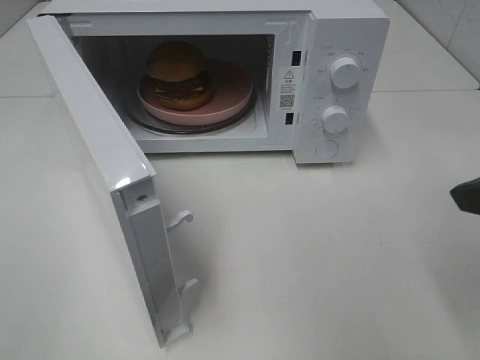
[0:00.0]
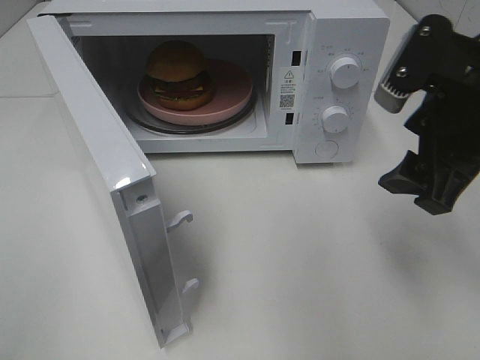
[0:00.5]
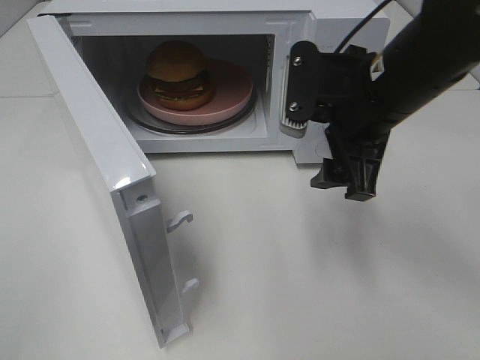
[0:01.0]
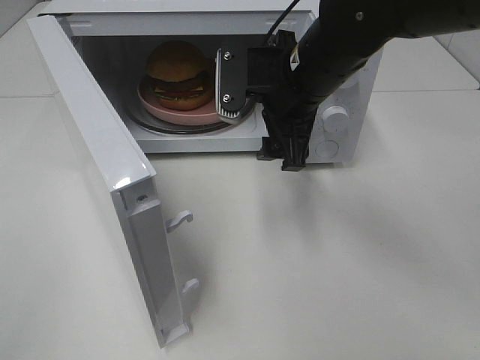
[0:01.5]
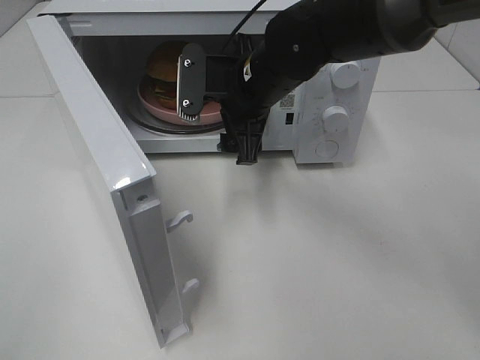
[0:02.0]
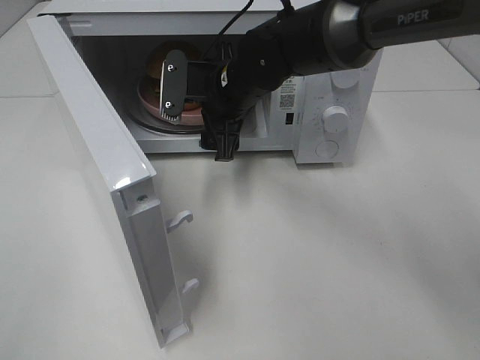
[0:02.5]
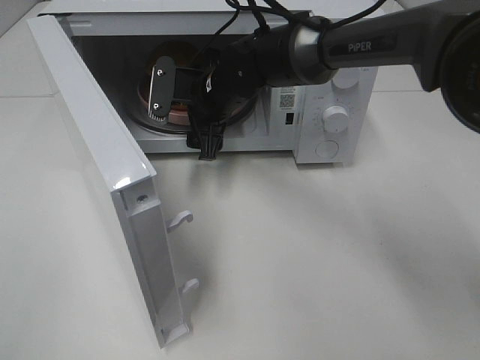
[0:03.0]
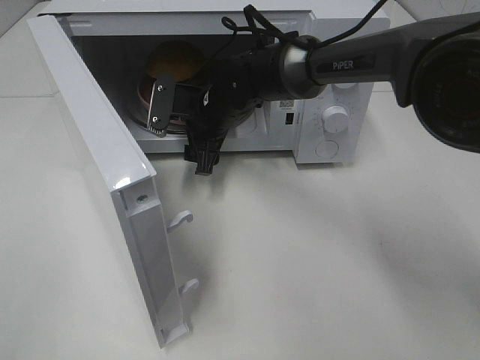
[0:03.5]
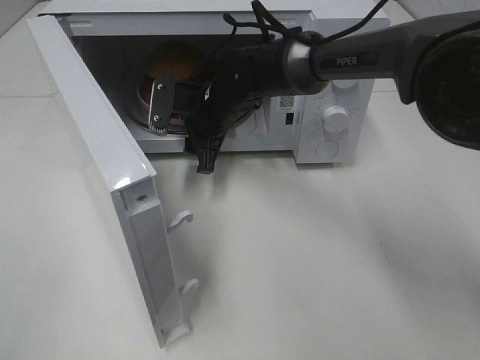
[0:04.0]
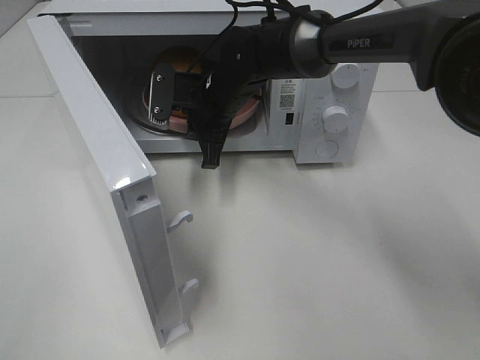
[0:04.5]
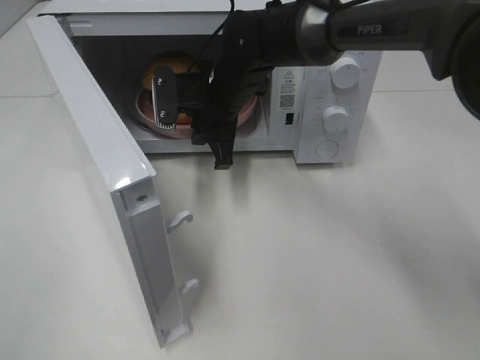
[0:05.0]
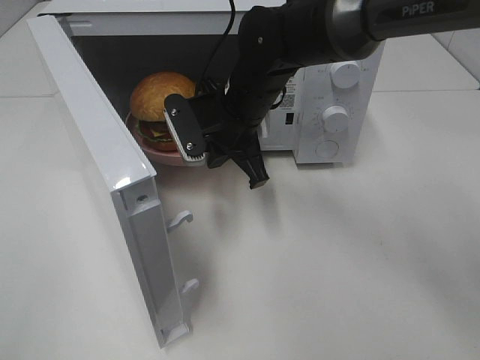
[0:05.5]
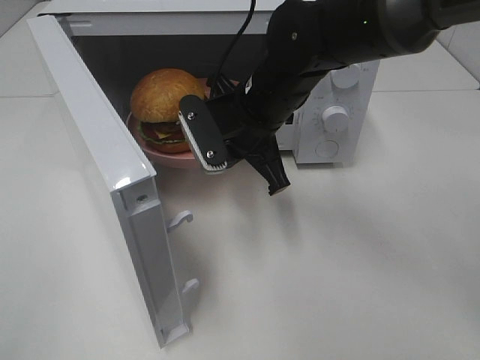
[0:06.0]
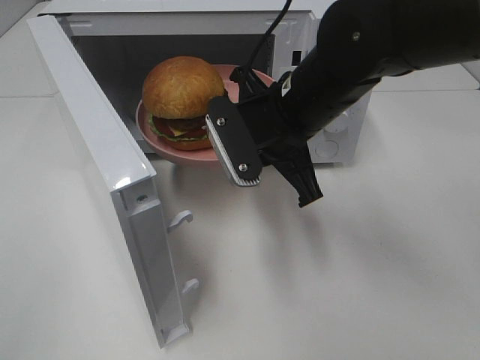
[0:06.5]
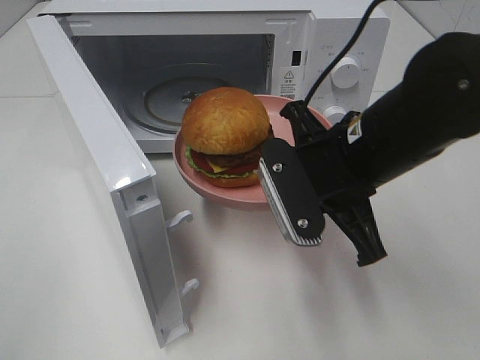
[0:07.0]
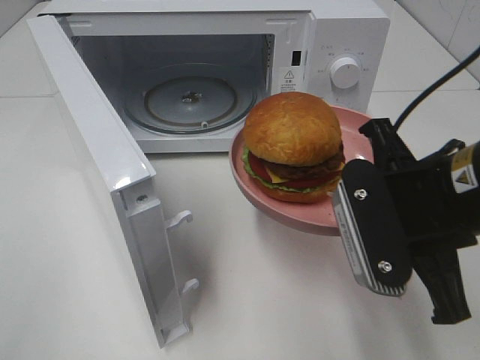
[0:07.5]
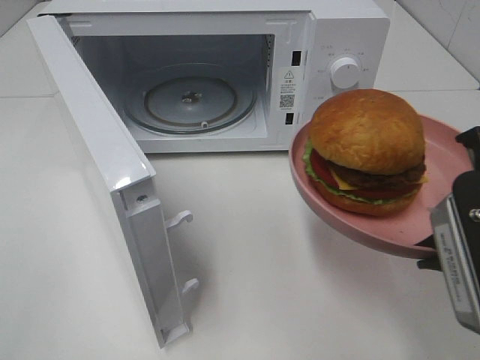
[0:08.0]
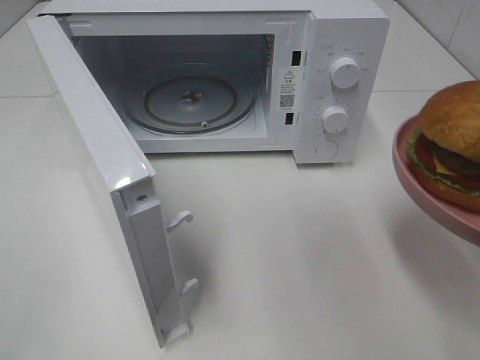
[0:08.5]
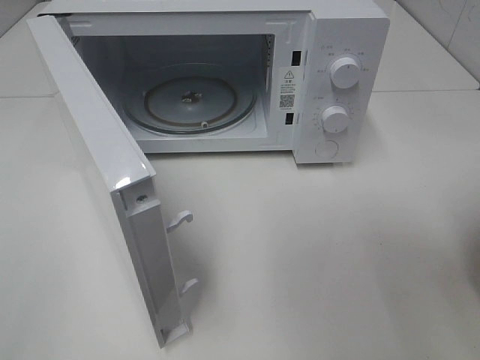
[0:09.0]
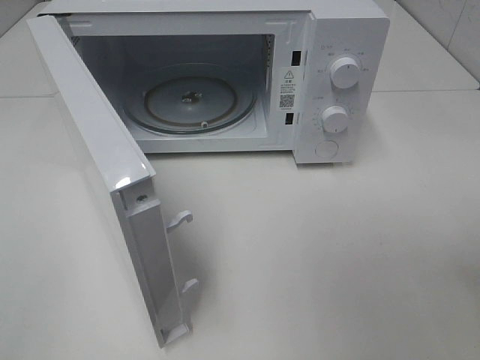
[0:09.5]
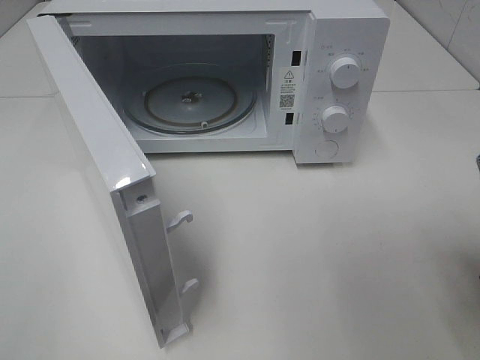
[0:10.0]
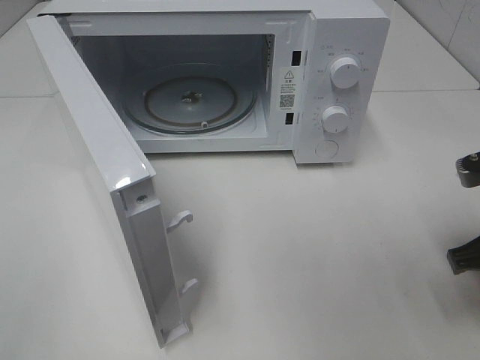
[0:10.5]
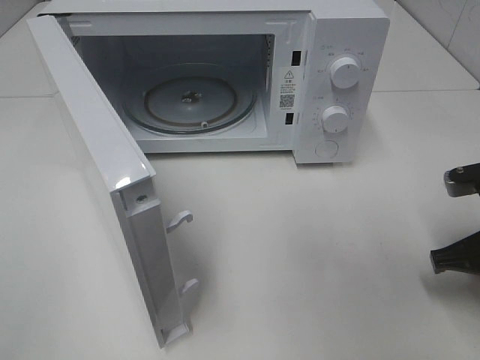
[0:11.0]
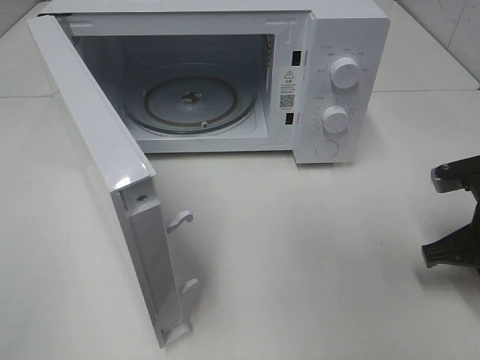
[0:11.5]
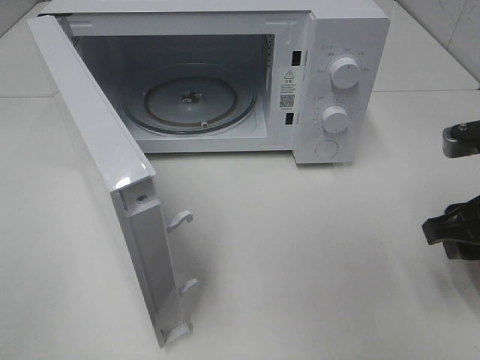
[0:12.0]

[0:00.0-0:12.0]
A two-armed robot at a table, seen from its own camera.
Task of the whole recording: Heat the burger.
Step, 0:00.0 to 0:04.0: Right hand: grab the plate with the hamburger.
Step, 0:04.5 to 0:11.5: Right hand: place the plate on the table.
0:00.0 to 0:02.0: The right gripper goes approximately 30 cm to the left and forward.
0:02.0 to 0:04.0: The right gripper is displaced downward and forward by about 10 cm.
0:04.0 to 0:06.0: The right gripper heads backward, upward and to the right, covering about 10 cm, and closes its fingers.
0:06.0 to 0:08.0: The right gripper shifts roughly 25 cm backward and to the right.
0:08.0 to 0:10.0: The right gripper moves about 5 cm.
0:10.0 to 0:12.0: The right gripper shifts about 5 cm forward, travels downward and back again, roughly 10 cm each way, and opens.

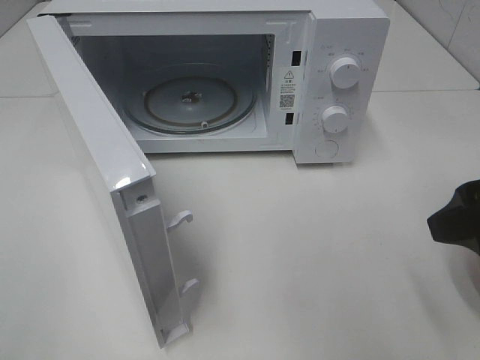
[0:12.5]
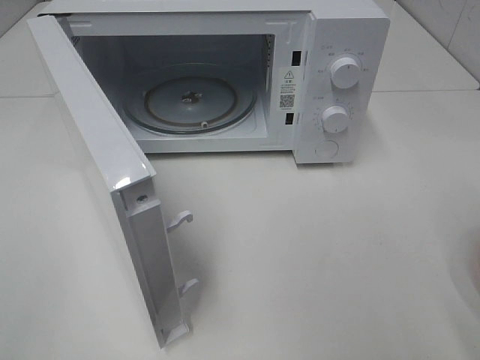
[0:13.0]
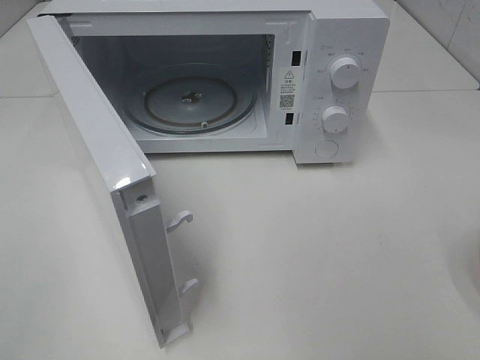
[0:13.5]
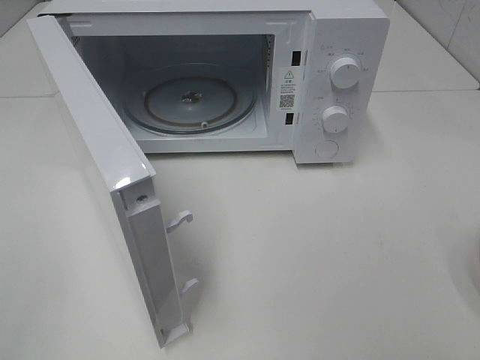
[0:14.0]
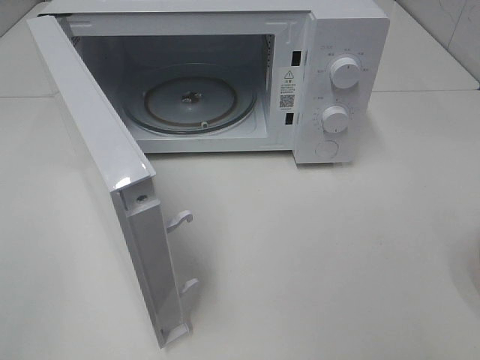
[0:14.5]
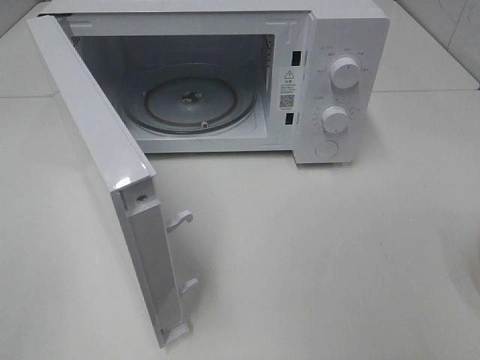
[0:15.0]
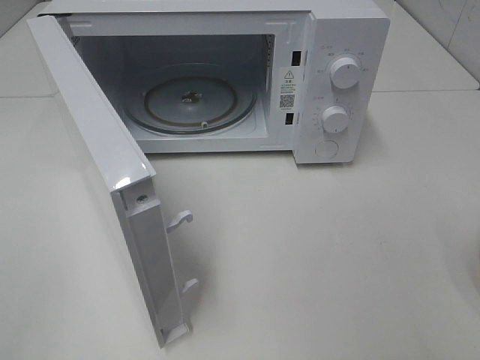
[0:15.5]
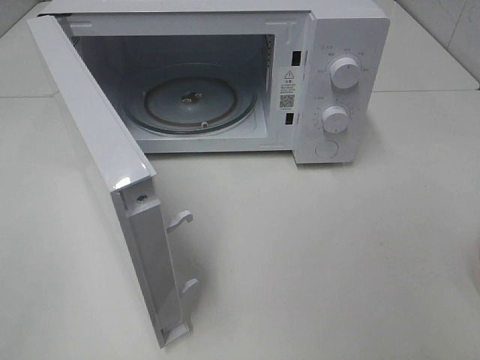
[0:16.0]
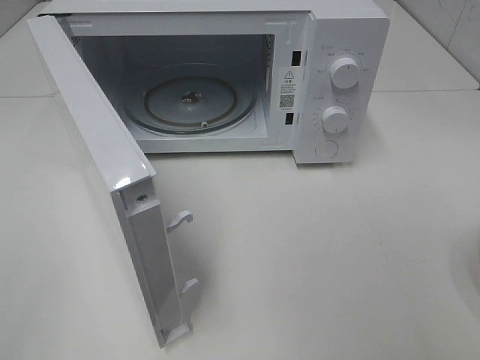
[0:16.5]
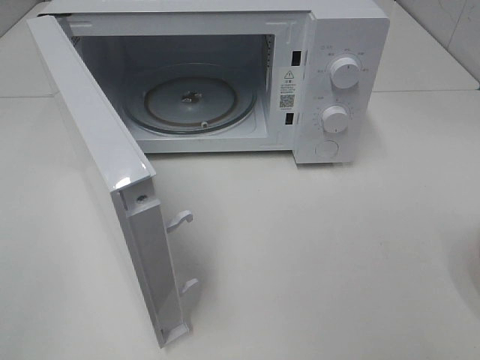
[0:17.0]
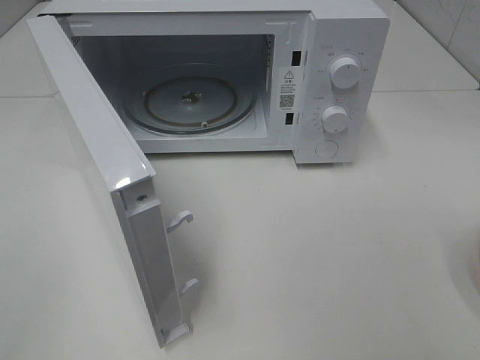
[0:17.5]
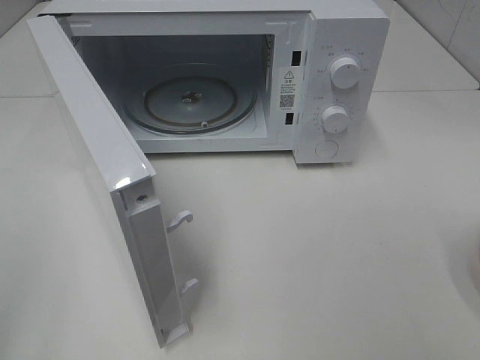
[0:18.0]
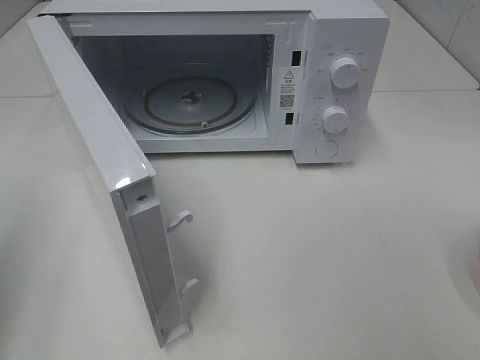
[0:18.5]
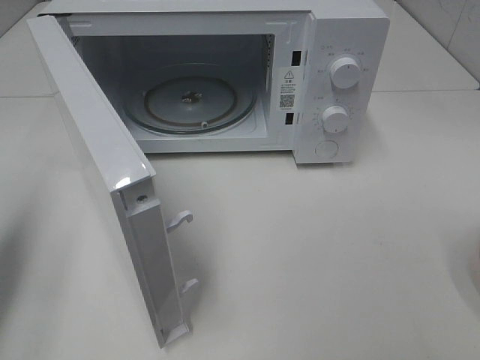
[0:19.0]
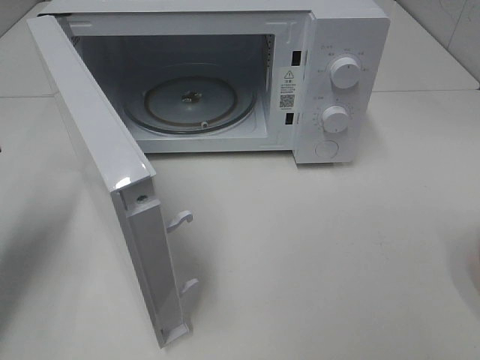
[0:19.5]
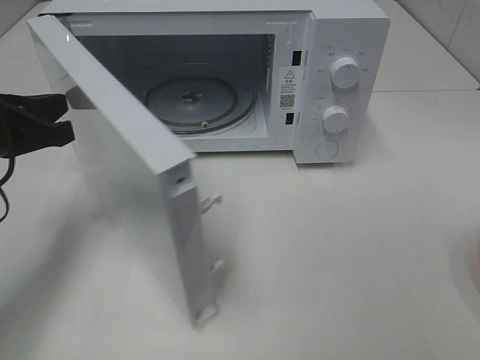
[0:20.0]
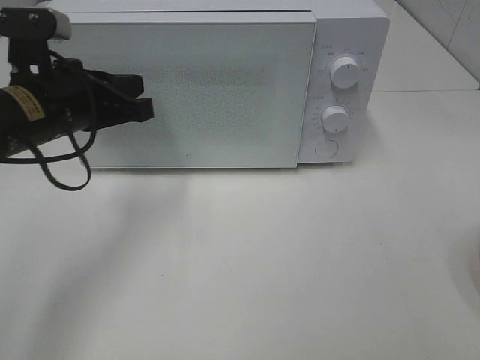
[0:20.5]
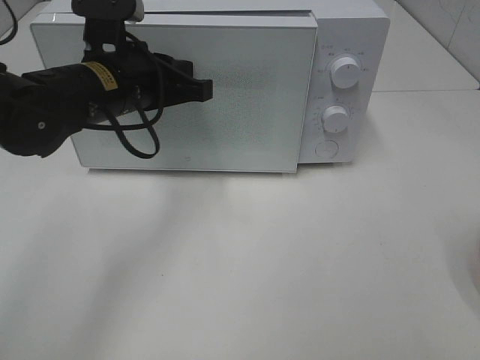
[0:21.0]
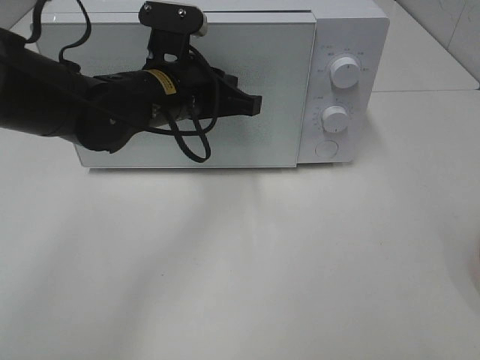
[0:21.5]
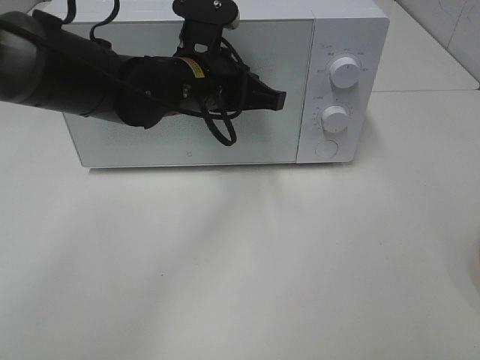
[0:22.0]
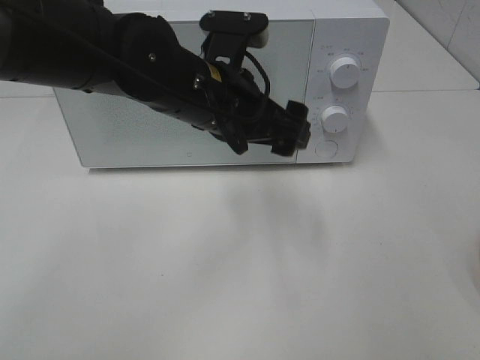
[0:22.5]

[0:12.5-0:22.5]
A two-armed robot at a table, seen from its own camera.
Task of the whole recording: Heat the burger.
Step, 0:12.5 to 0:21.5: Left hand: close the microwave door.
0:12.5 to 0:14.5: The right gripper is displaced backward by approximately 15 cm.
0:14.5 to 0:16.5: Both grippers stay put.
0:16.5 to 0:18.5: The left gripper travels forward by approximately 15 cm, and closes.
0:18.5 to 0:20.5: The left gripper shifts approximately 25 cm forward, to the right and downward.
0:20.5 to 0:22.5: The left gripper moves to the right, approximately 15 cm, and opens up.

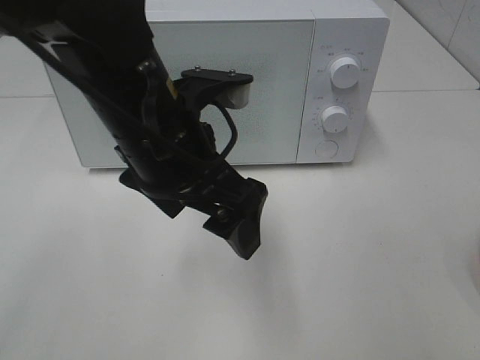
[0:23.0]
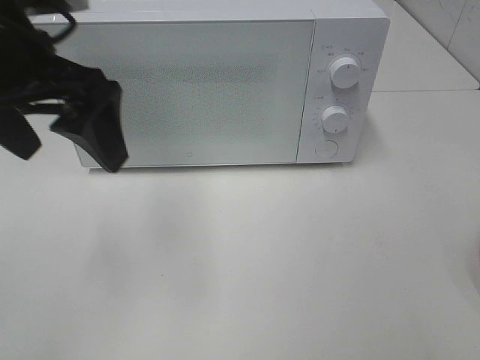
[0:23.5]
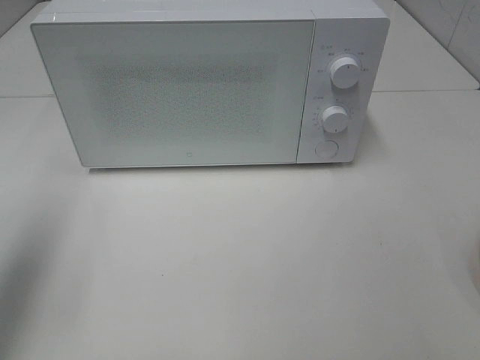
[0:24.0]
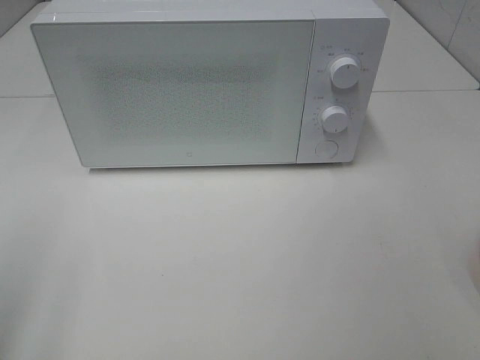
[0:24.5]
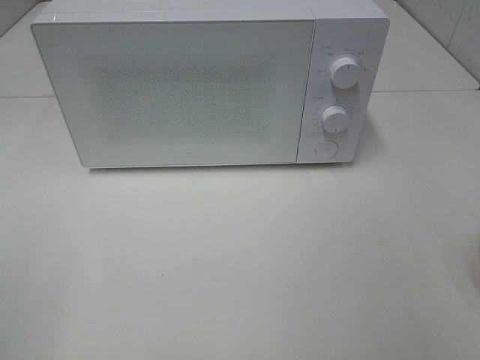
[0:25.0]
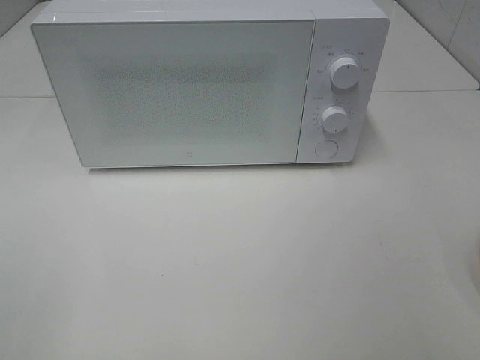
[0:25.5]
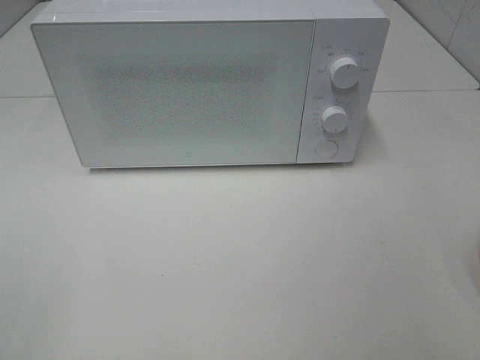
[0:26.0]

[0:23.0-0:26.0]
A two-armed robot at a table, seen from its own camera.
Task of the whole recording: Heat the burger.
0:23.0 to 0:24.5: The left gripper goes approximately 30 cm to the left and backward.
